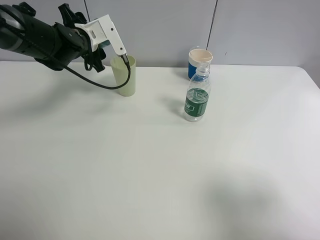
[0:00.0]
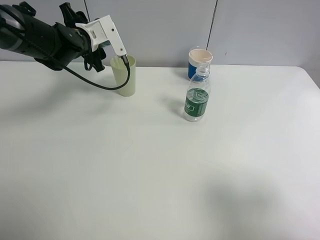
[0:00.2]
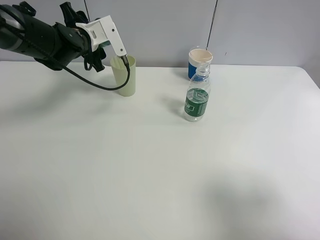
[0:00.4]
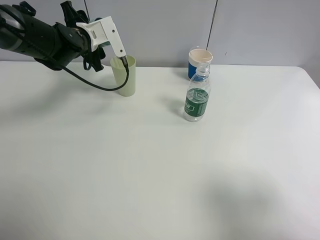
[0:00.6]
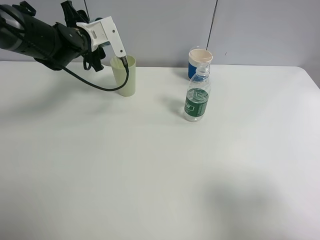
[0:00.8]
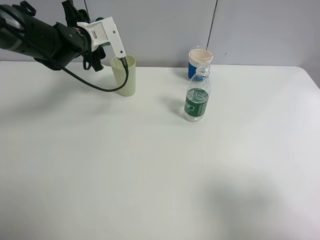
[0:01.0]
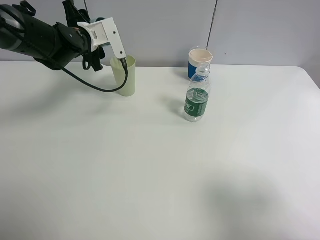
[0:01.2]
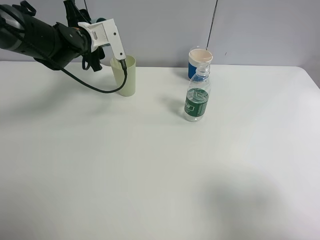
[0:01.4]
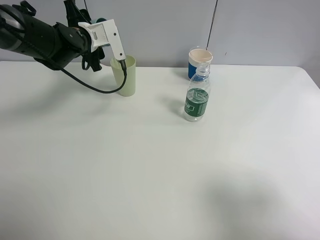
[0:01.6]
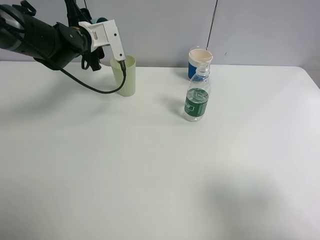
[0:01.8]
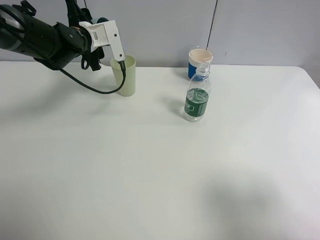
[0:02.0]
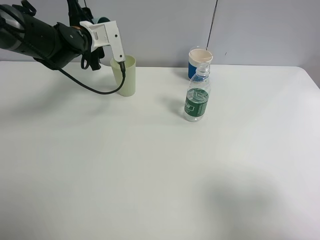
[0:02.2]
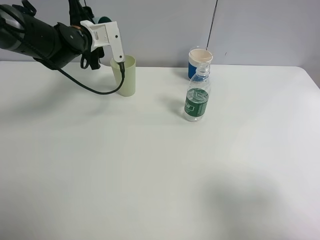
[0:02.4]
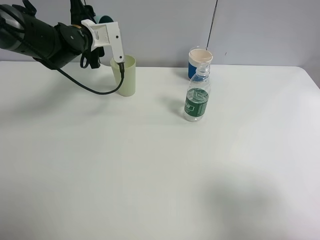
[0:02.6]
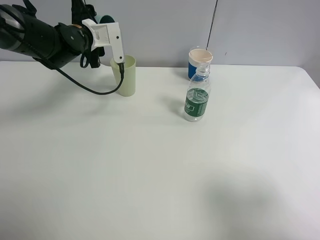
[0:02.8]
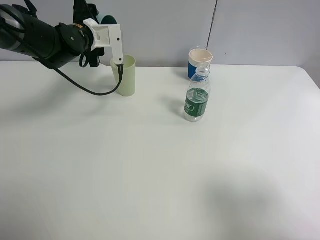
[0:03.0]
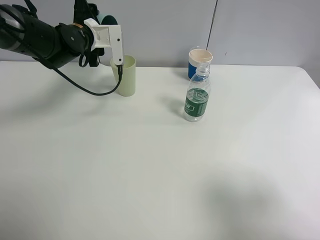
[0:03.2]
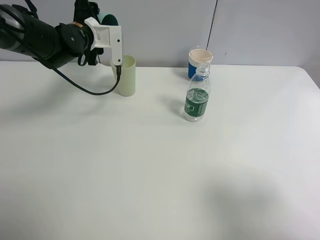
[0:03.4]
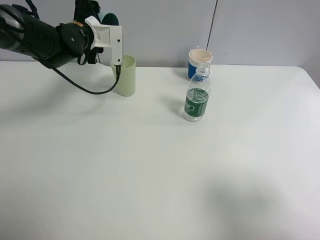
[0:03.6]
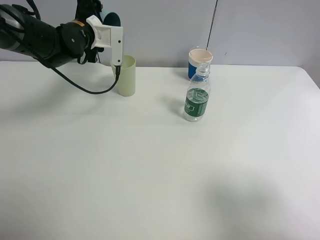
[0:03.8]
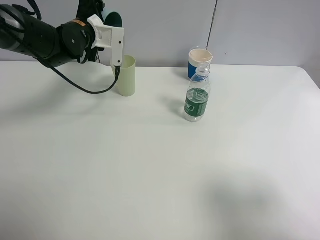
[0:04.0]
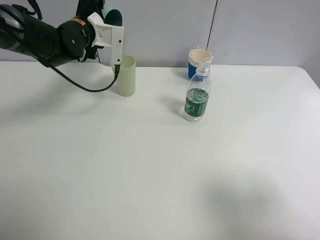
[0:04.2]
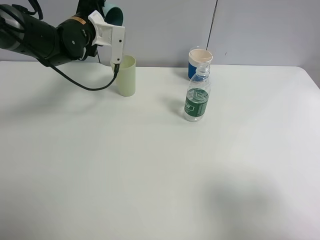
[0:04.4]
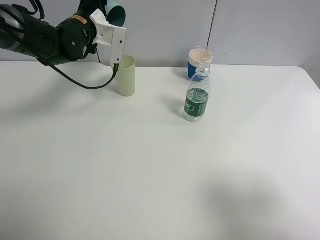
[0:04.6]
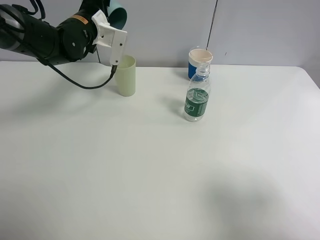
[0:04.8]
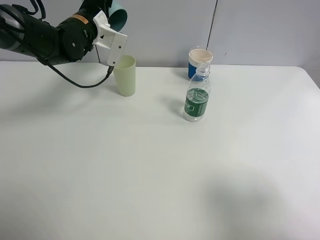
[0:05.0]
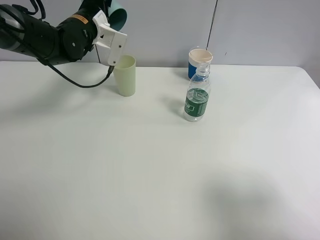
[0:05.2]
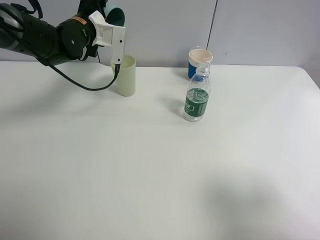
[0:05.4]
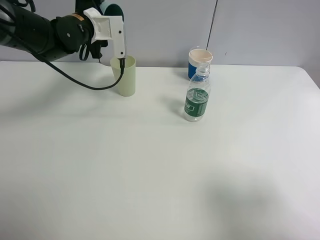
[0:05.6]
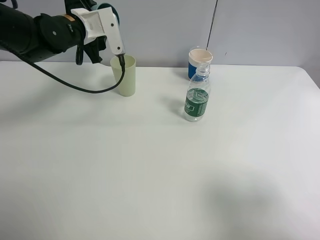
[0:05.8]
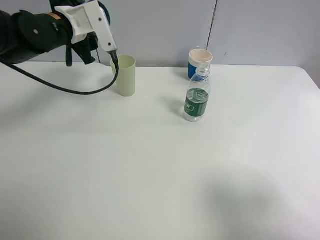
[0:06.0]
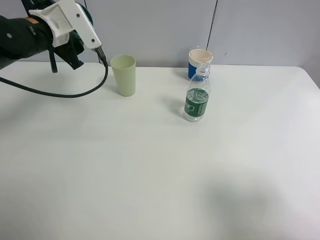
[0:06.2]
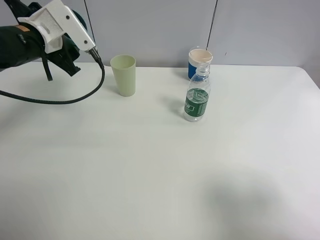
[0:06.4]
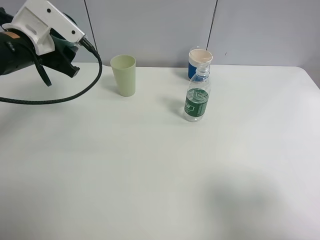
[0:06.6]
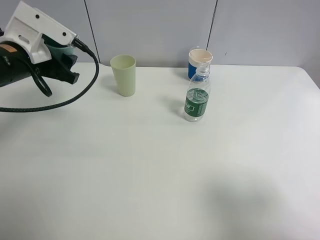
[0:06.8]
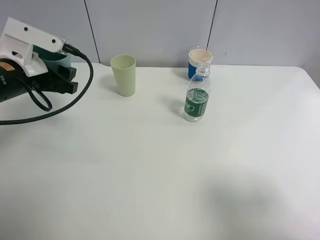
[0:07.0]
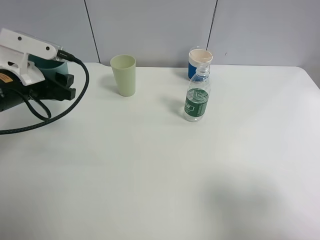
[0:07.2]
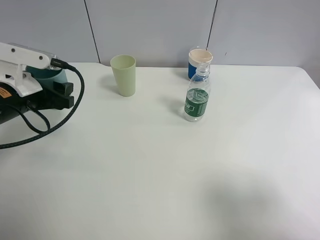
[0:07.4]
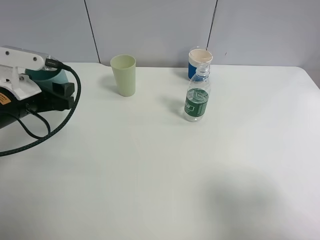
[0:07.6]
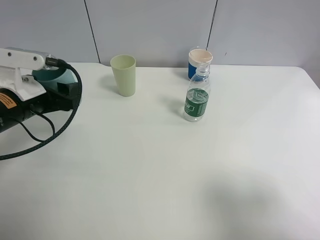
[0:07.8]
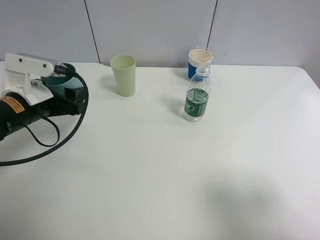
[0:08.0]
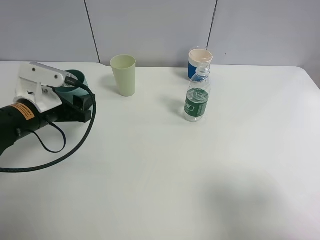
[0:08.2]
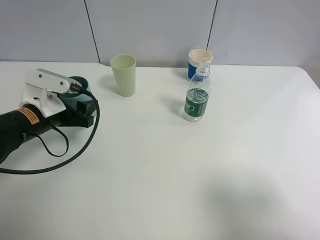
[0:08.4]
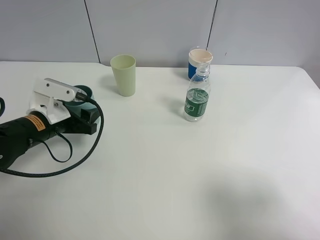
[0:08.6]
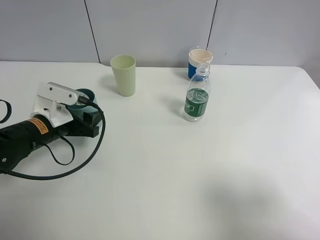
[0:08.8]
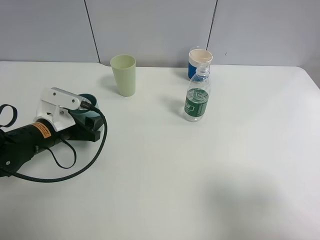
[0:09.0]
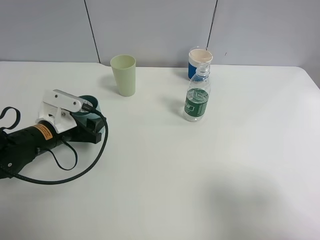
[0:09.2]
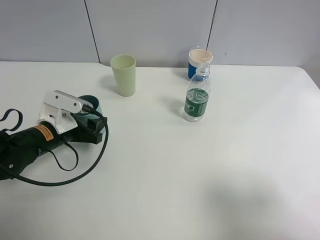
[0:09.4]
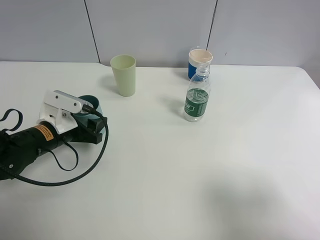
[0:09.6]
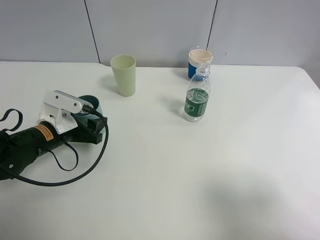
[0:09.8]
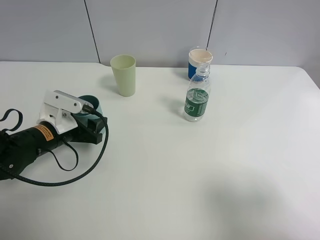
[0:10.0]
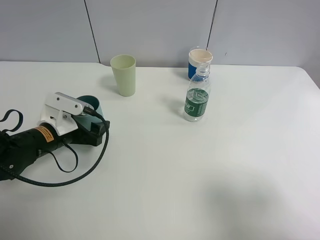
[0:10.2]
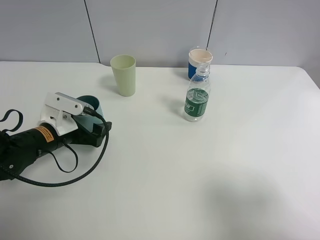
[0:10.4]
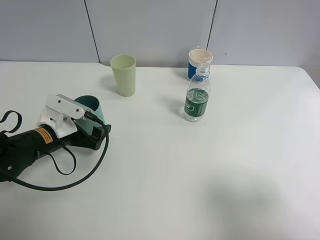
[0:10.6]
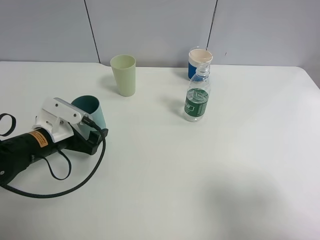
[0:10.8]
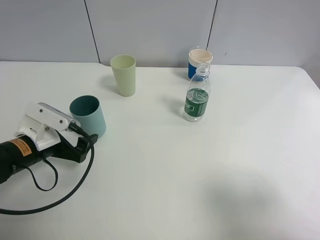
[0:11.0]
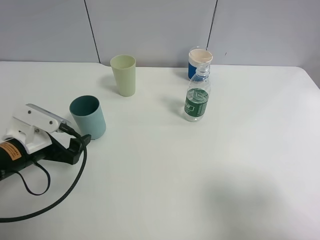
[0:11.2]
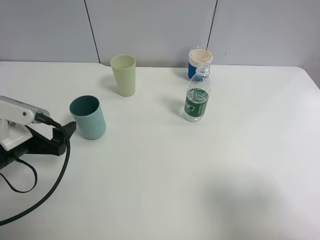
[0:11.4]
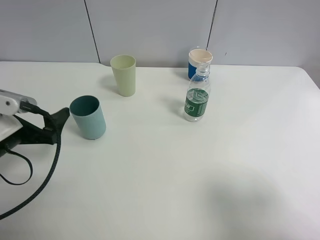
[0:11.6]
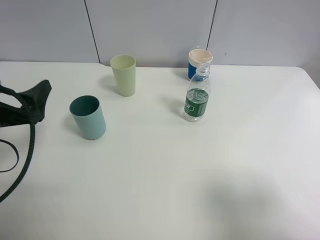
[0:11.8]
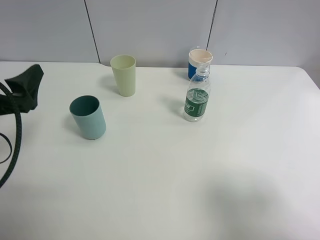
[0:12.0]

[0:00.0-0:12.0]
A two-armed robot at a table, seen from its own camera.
Task of the whole recording: use a clamp to hold the bottle of the drink, pour the beverage into a random cup, then clamp the cup containing the drink and pour the drink into another random cup.
Step, 0:00.0 to 0:05.6: Pour the water into the green plastic cup with left gripper.
Step, 0:05.8 to 0:10.4: Place the blue plastic cup on the table with left gripper.
0:00.0 to 0:01.6: There are only small adjustments of the grippers.
0:01.6 to 0:03.0: The grippers move only a little.
0:03.0 to 0:04.4: The grippers move only a little.
0:04.4 to 0:06.0: The left gripper shifts by roughly 5 cm.
0:06.0 to 0:07.6: The left gripper travels backward and downward by roughly 15 cm.
0:07.6 to 0:09.0: The left gripper moves downward, approximately 10 cm.
0:09.0 to 0:10.4: The left gripper opens up.
0:10.4 to 0:12.0: The left gripper shifts some 15 cm upward, backward and to the left.

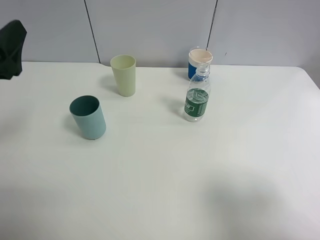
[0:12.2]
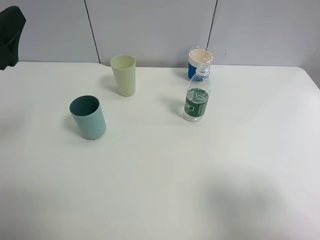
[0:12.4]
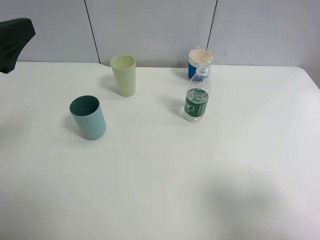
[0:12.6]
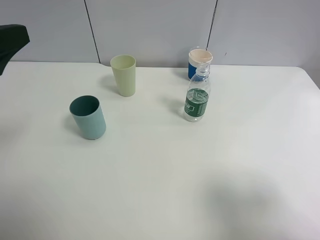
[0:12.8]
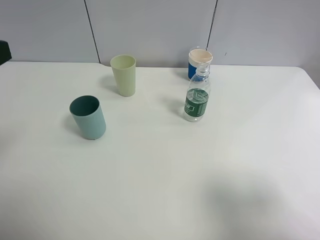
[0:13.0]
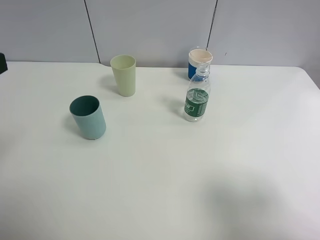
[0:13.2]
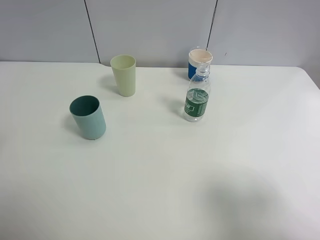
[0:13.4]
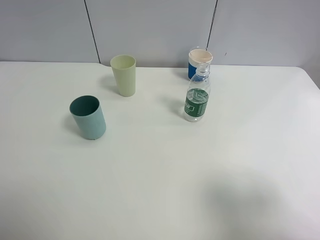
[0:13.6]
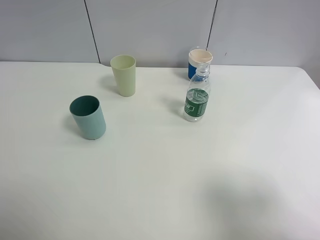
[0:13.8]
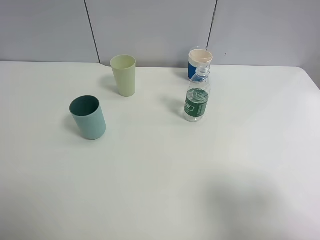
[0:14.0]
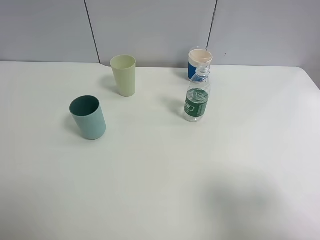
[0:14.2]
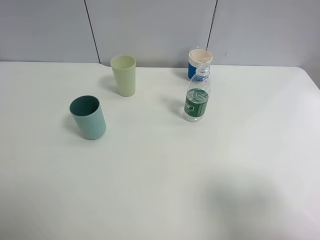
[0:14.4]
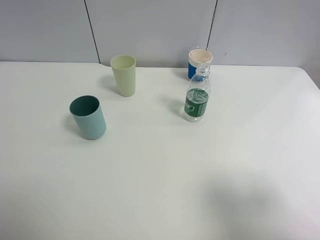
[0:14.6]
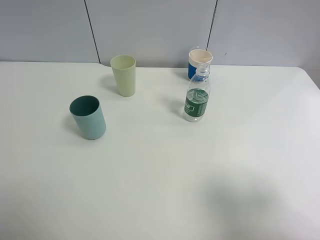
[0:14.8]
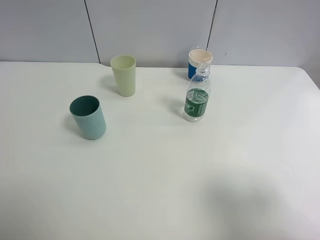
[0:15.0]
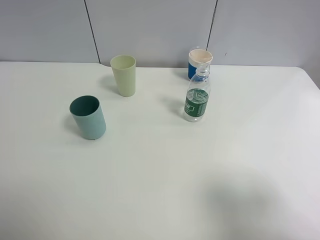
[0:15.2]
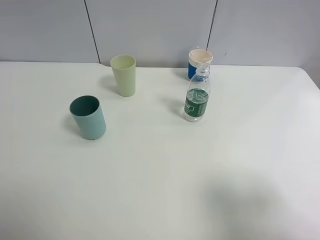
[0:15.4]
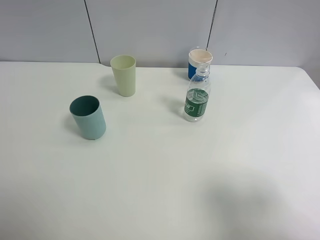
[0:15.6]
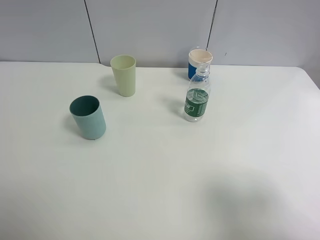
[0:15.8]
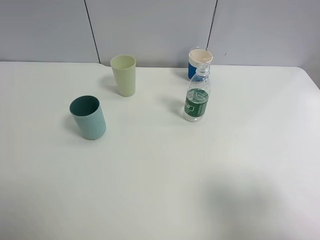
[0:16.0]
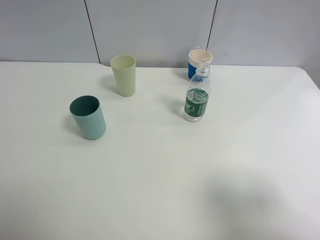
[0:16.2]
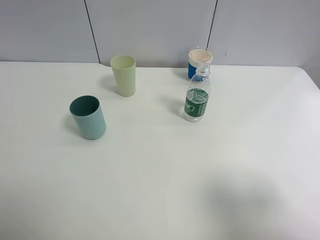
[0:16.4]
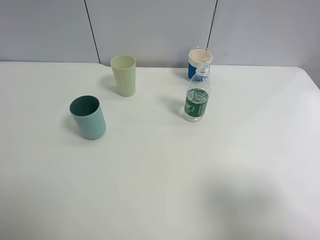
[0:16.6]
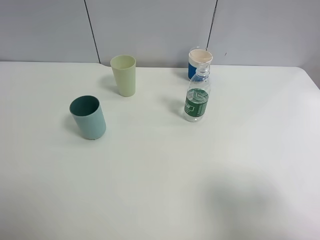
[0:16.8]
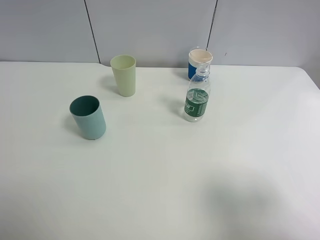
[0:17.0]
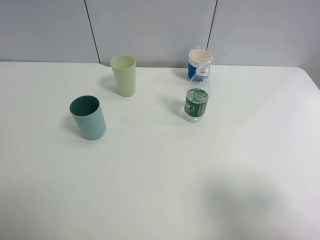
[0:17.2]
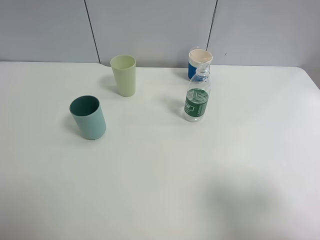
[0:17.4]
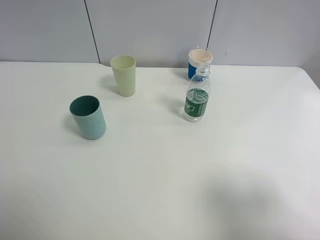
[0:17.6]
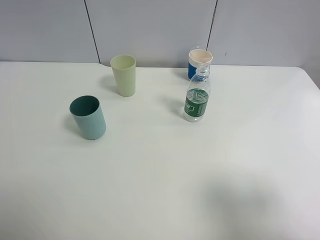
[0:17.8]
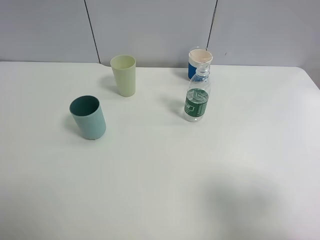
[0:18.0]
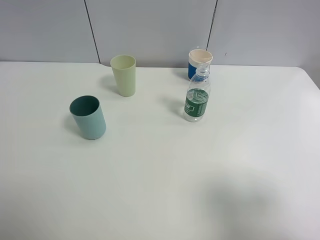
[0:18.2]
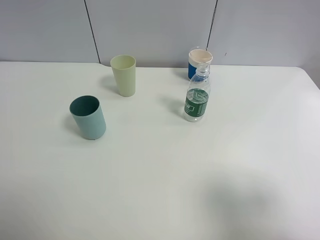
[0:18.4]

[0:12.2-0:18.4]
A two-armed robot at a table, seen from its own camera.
Task of the whole recording: use a clamp to hold the bottle of the drink, pour the beverage into a random cup, then clamp the cup containing the drink and pour the drink into another random cup.
0:12.2 to 0:13.8: The left gripper is displaced backward and upward by some 15 cm.
0:15.4 to 0:18.4: Both grippers stay put.
